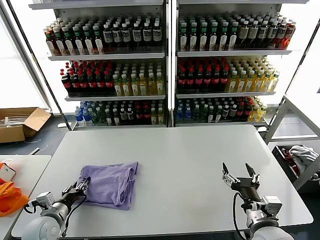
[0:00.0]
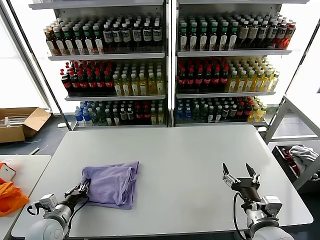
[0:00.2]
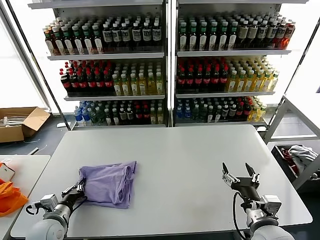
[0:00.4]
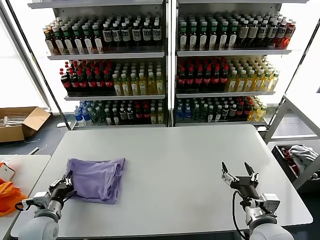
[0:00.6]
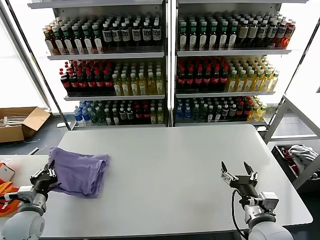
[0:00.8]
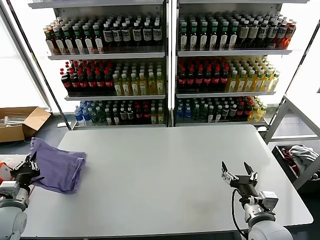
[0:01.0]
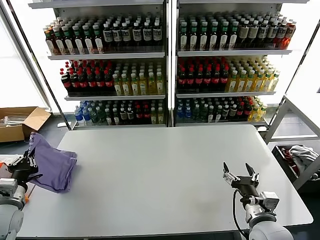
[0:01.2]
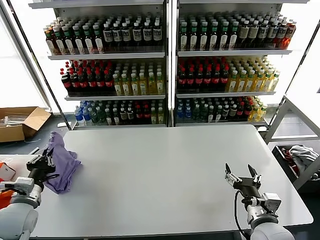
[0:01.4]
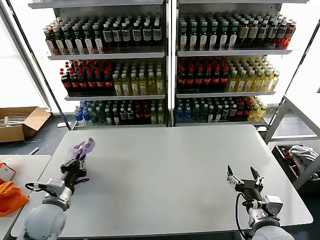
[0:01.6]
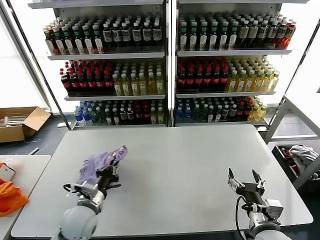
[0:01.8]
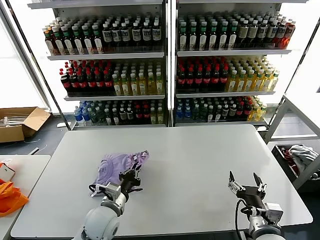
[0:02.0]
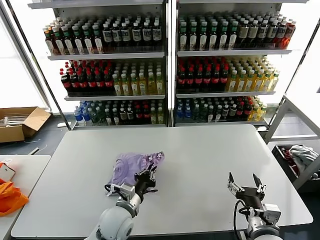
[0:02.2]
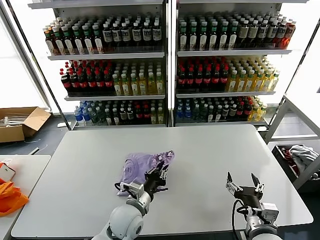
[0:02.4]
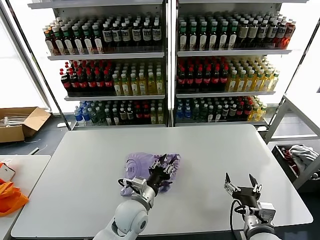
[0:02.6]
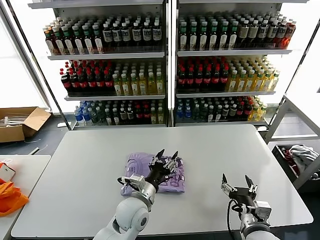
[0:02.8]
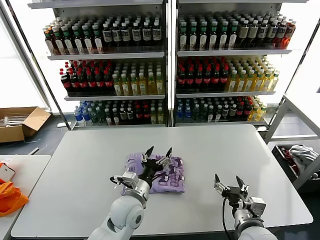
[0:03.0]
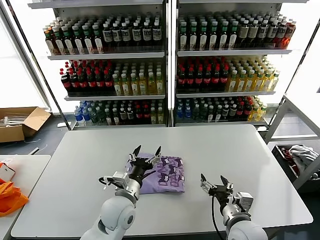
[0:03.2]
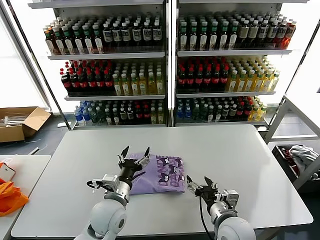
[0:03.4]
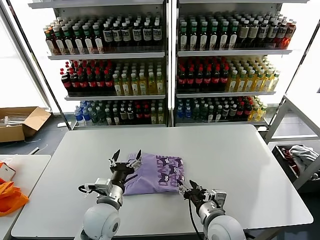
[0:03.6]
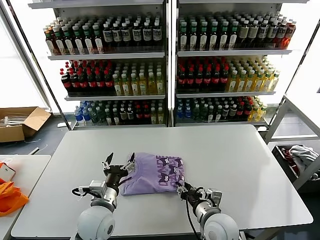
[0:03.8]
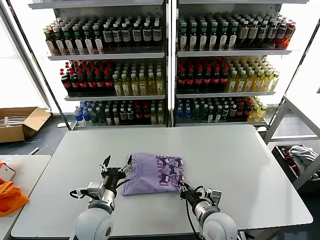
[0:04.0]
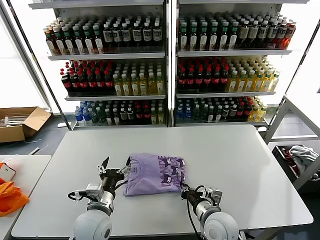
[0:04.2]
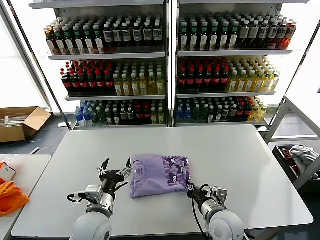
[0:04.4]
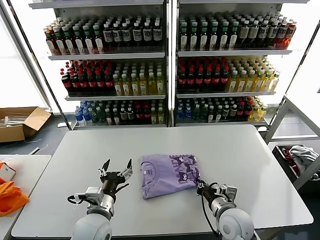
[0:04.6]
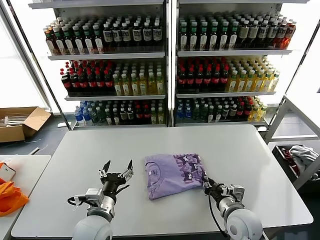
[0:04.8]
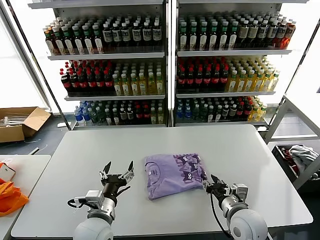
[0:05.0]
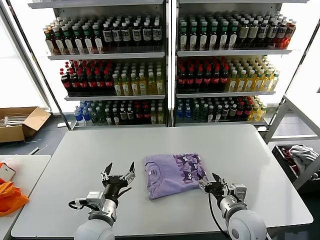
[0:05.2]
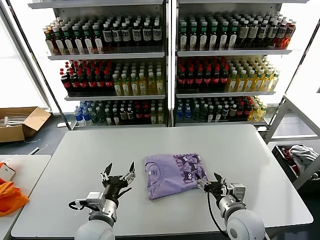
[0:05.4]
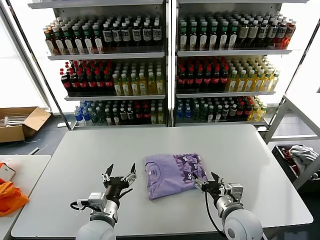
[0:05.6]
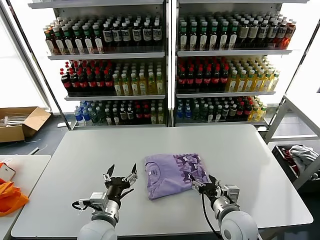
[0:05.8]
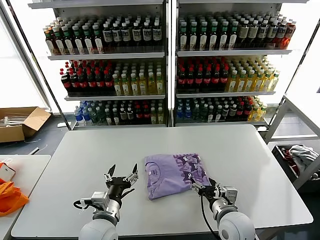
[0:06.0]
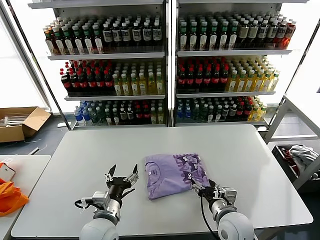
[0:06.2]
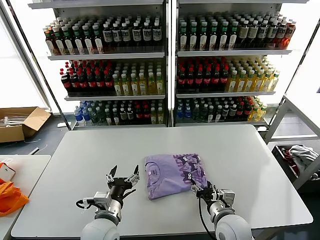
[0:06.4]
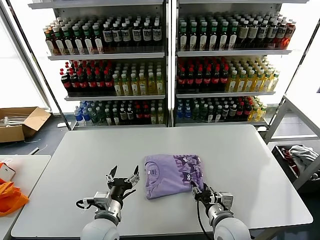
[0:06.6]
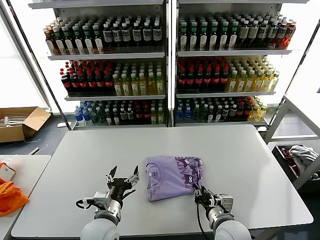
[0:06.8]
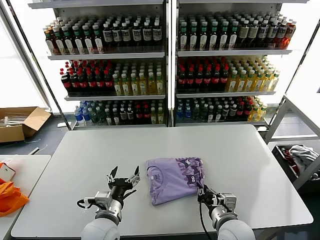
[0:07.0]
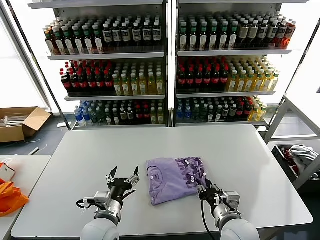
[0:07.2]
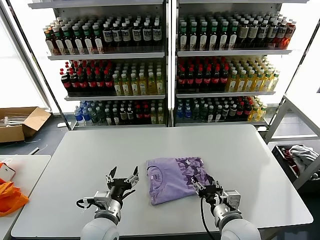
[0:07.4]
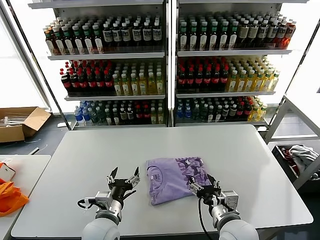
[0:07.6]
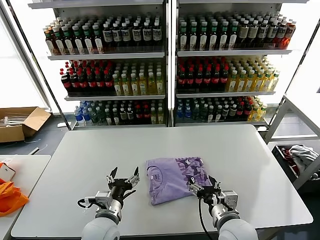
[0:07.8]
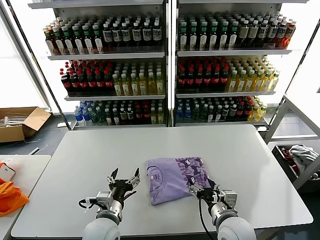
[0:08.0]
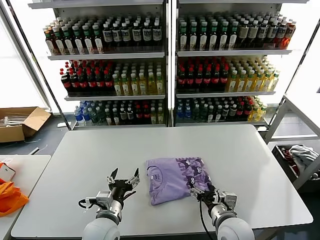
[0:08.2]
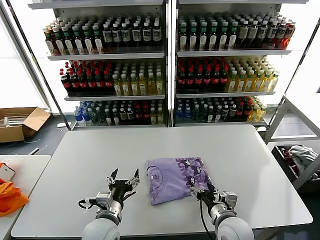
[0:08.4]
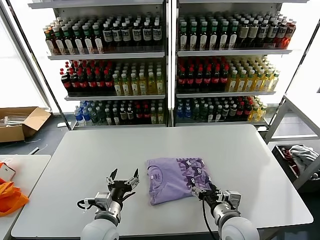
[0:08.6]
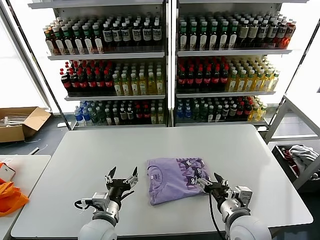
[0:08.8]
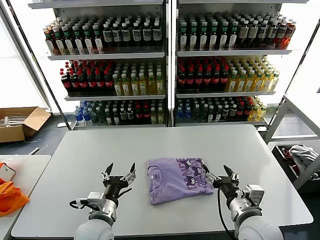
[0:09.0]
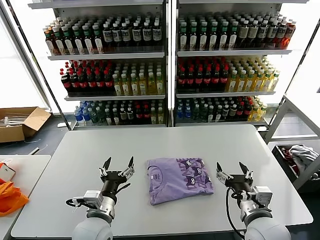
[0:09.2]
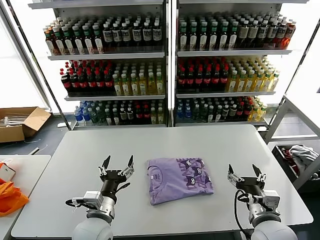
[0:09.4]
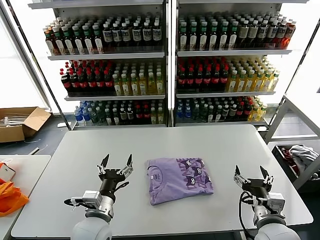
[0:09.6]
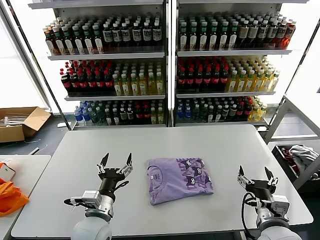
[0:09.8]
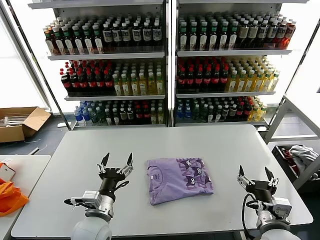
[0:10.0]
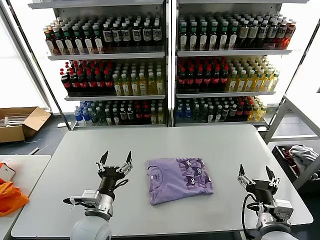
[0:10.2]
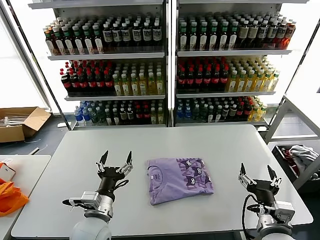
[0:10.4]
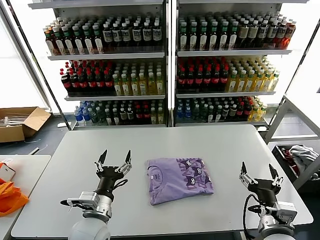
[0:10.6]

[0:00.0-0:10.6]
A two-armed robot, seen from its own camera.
Task of the whole recording: fold and organize the clothes.
Step, 0:00.0 to 0:02.8: Flip the folded clothes over with left gripper.
Step, 0:03.0 to 0:08.6: Drag the clothes to the center of the table.
0:00.0 to 0:01.6: The left gripper shifts about 5 cm upward, goes to the left and returns, roughly 10 cm each way, and closes.
0:01.6 to 0:03.0: The left gripper shifts approximately 25 cm to the right, and opens its fingers.
0:03.0 to 0:04.6: The left gripper heads to the left and backward, covering about 10 cm; the right gripper heads forward, covering approximately 5 cm, and closes.
0:04.6 to 0:06.0: The right gripper opens up.
0:06.0 to 0:07.6: The right gripper changes place by approximately 5 cm, and closes, then opens again.
0:07.6 to 0:09.0: The grippers move only a little.
0:09.0 to 0:10.6: The right gripper moves some 5 cm.

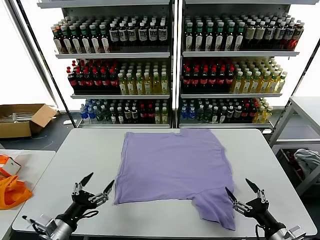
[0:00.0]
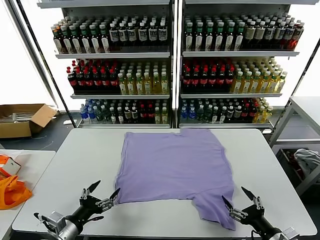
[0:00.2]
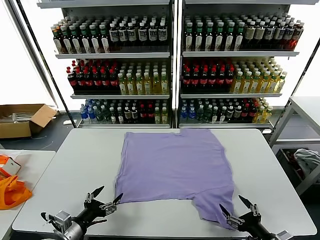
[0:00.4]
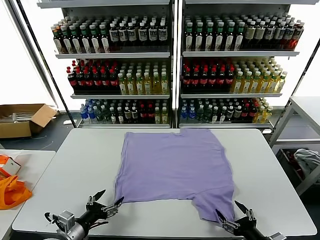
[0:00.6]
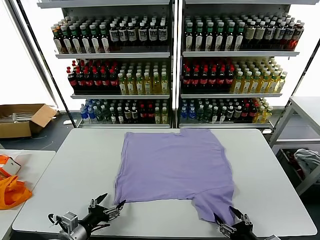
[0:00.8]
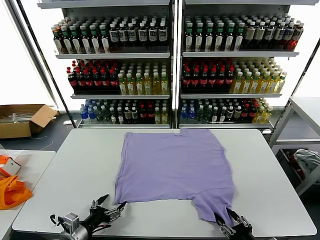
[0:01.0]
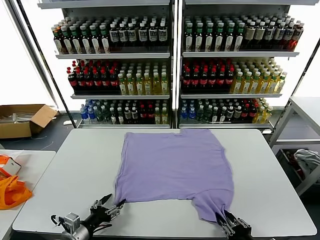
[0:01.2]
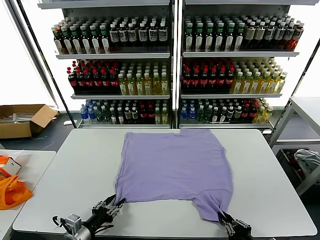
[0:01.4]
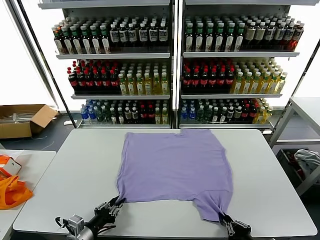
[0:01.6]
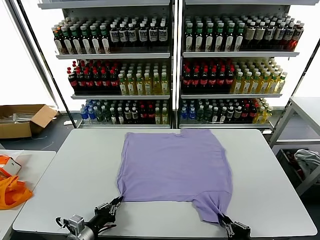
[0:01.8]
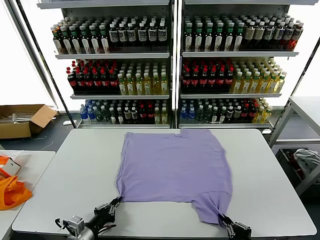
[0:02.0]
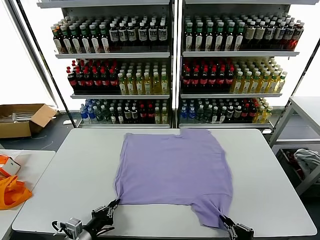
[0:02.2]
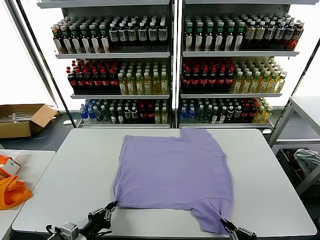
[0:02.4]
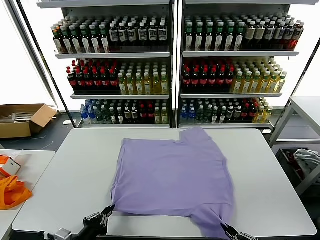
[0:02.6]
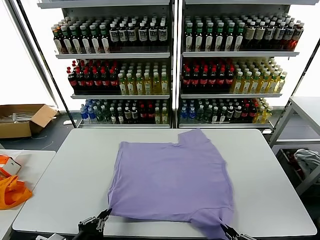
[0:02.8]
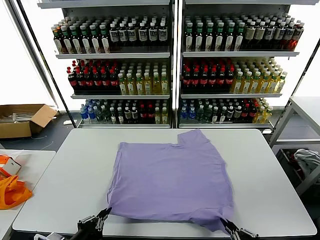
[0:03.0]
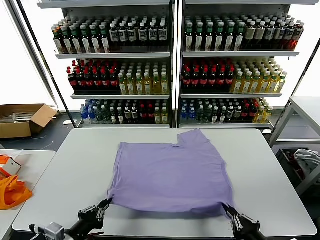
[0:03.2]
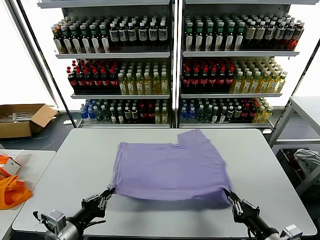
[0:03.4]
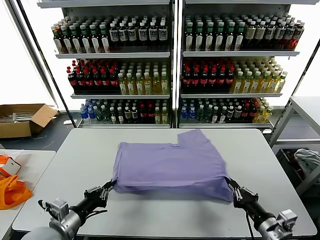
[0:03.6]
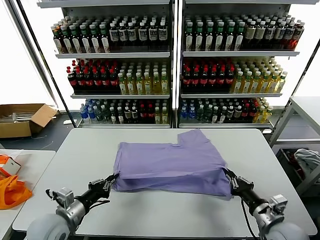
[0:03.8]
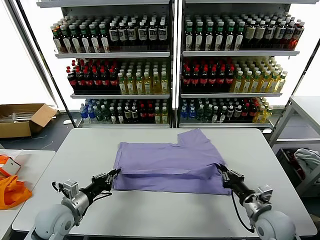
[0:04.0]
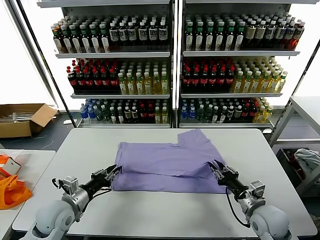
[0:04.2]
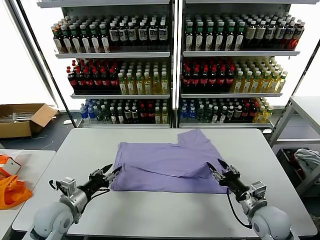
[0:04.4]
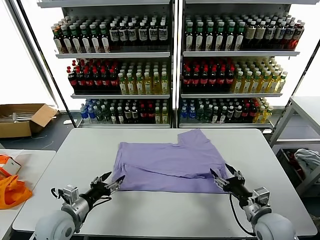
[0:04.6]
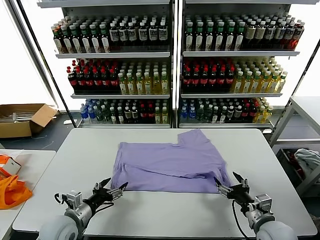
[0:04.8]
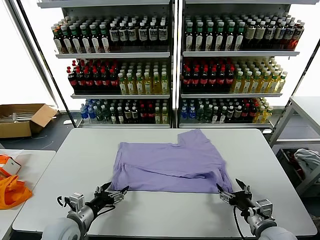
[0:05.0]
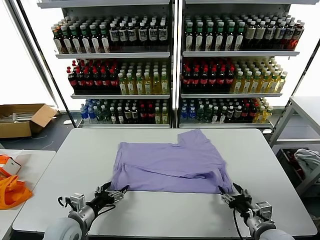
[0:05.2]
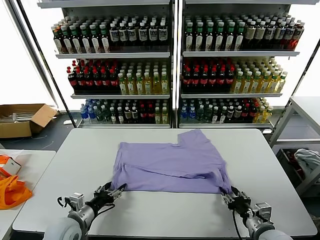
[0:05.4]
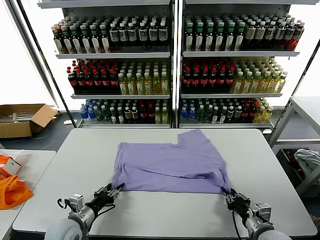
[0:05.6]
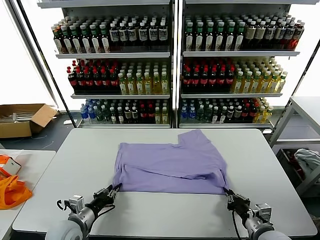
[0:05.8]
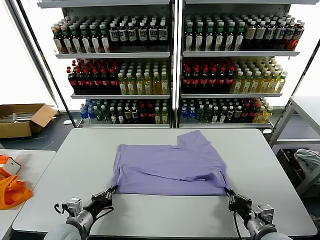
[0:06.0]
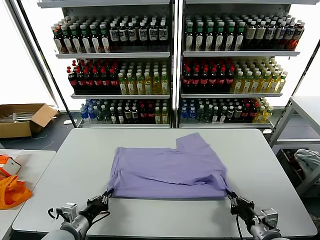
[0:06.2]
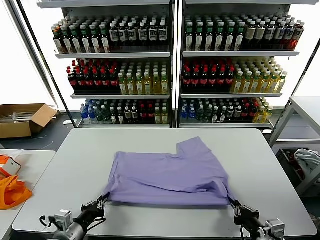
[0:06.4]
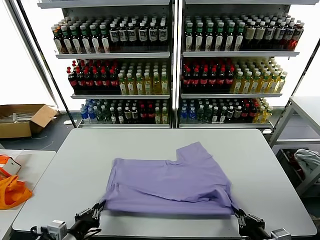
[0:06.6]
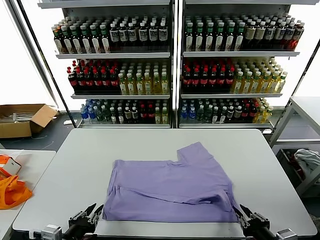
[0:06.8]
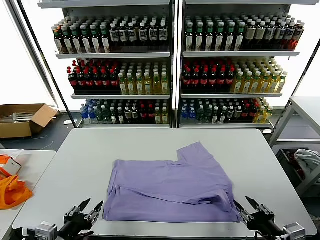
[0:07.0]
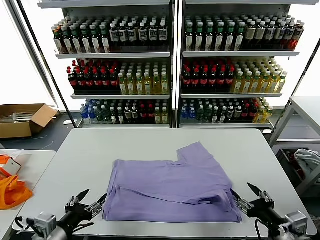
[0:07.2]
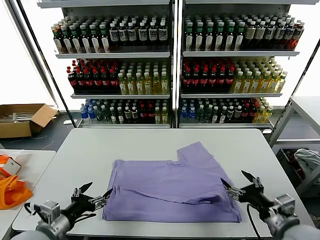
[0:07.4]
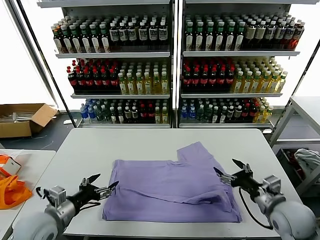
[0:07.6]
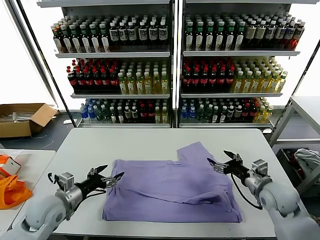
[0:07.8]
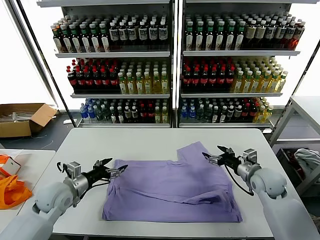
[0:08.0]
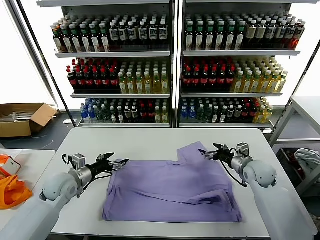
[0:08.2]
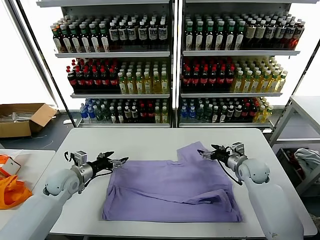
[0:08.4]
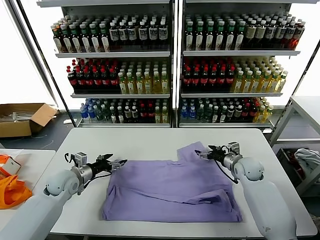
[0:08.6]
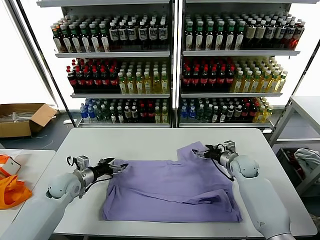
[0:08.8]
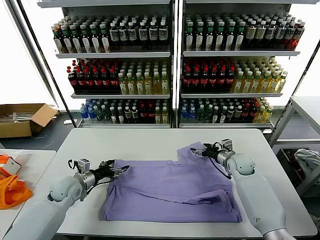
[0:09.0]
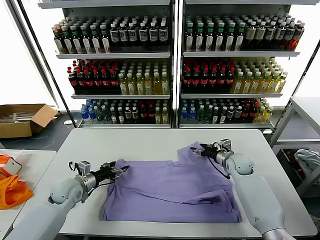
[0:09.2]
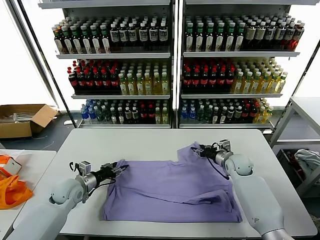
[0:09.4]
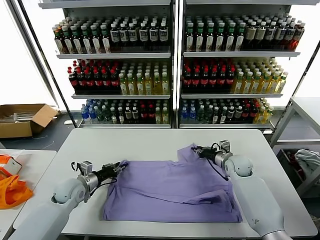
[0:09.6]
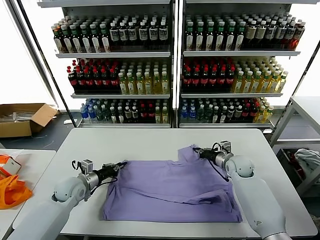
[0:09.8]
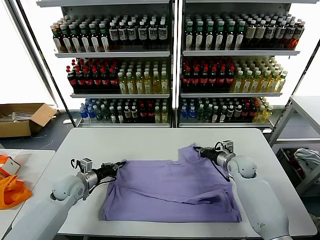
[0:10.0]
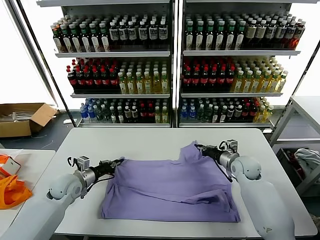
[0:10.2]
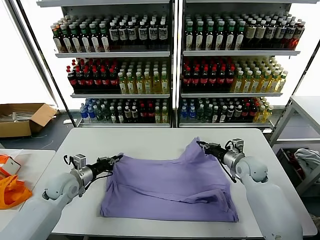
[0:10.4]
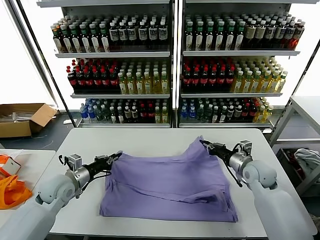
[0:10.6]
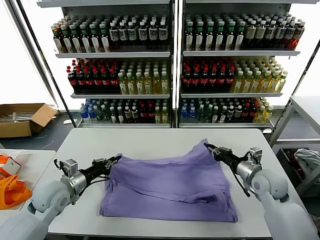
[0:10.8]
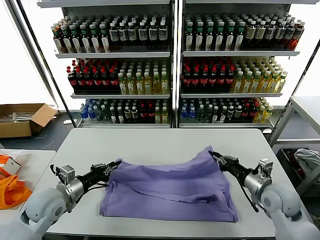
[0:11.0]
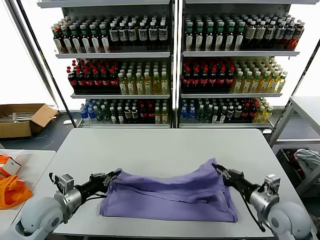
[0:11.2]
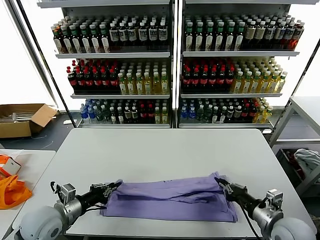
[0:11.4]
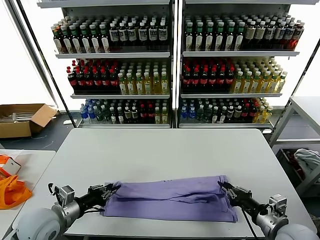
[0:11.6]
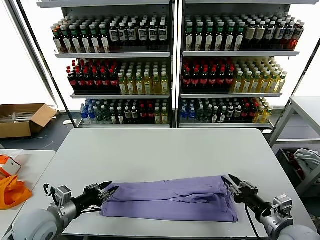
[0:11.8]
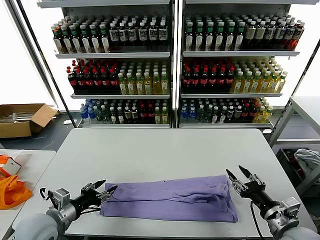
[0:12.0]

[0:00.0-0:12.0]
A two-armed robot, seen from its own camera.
Task of the whole recording: fold and organize the clothes.
Step, 0:00.0 to 0:01.8: use both grippers simultaneously to clamp the lower edge of the clothing fabric.
Step, 0:02.0 to 0:04.2: use both grippers to drag the lower edge of the fabric forward and fold it over the upper edge.
Step, 0:04.4 to 0:06.6: Drag the clothes downward with both gripper.
Step, 0:06.8 to 0:09.6: use both grippers simultaneously to clamp the upper edge of the clothing fabric.
Step, 0:09.8 to 0:11.8: use both grippers to drag the upper edge of the fabric backward and fold it over the lower edge.
0:01.6 to 0:03.0: The left gripper shifts some 10 cm upward and backward, while the right gripper travels upward by roughly 10 cm.
0:03.0 to 0:04.4: The grippers both shift forward by some 15 cm. The left gripper opens. The right gripper opens.
0:04.4 to 0:06.0: The right gripper goes about 5 cm backward, and closes, while the left gripper is displaced downward by about 5 cm, and closes its fingers.
0:06.0 to 0:07.6: The left gripper moves upward, roughly 10 cm, moves roughly 10 cm backward and comes back, and opens its fingers, while the right gripper goes about 10 cm forward and upward, and opens its fingers.
0:07.6 to 0:09.0: Both grippers travel together forward and downward, some 20 cm.
0:09.0 to 0:10.4: The right gripper moves backward and upward, roughly 10 cm, and closes its fingers; the left gripper closes.
0:10.4 to 0:12.0: The right gripper travels backward by some 25 cm, and opens its fingers, while the left gripper goes some 15 cm backward, and opens its fingers.
